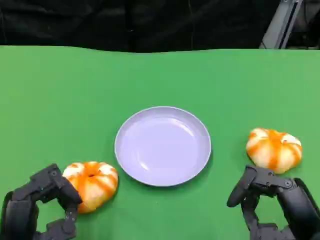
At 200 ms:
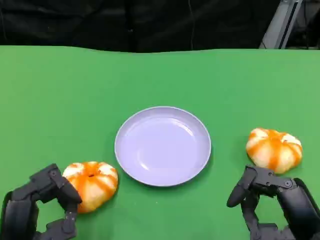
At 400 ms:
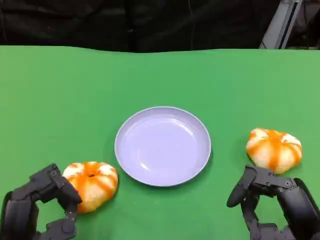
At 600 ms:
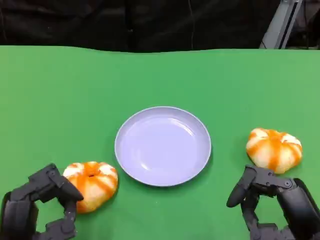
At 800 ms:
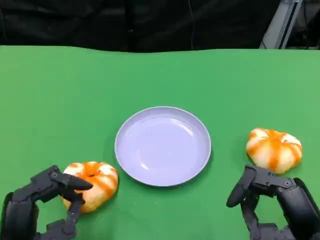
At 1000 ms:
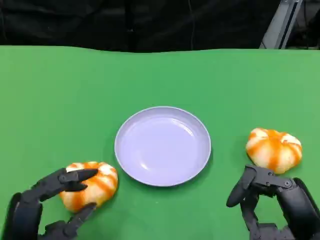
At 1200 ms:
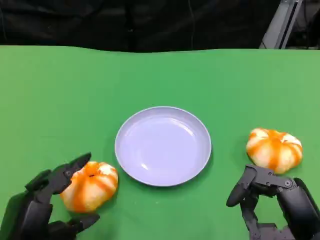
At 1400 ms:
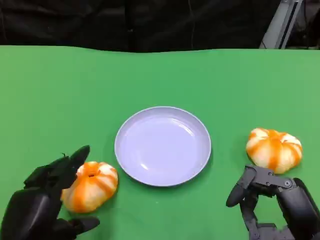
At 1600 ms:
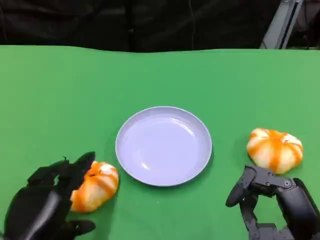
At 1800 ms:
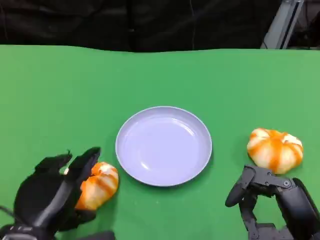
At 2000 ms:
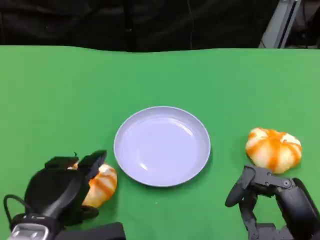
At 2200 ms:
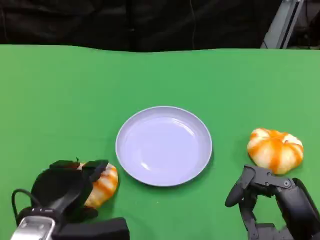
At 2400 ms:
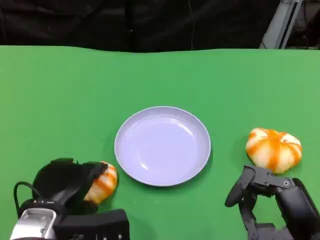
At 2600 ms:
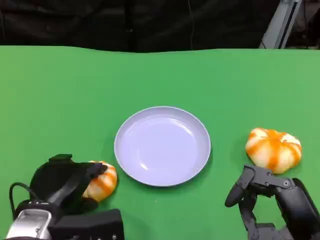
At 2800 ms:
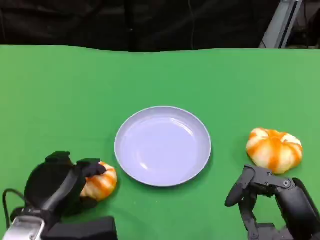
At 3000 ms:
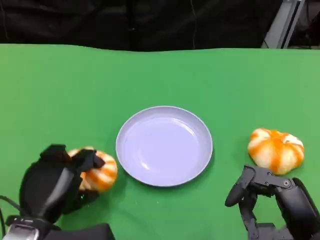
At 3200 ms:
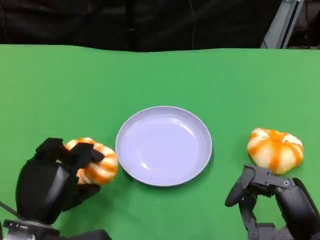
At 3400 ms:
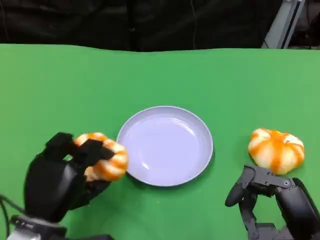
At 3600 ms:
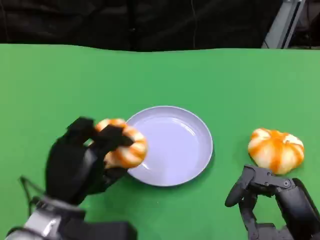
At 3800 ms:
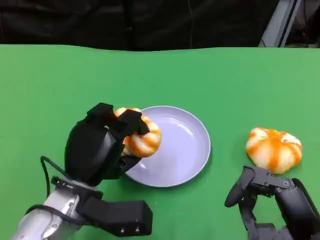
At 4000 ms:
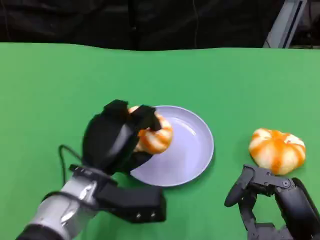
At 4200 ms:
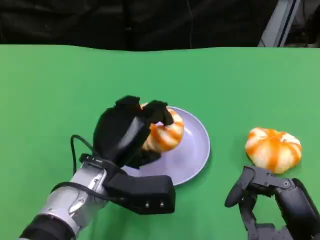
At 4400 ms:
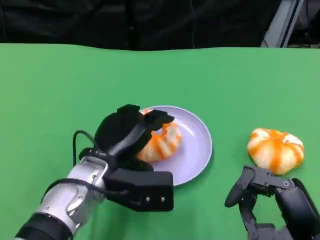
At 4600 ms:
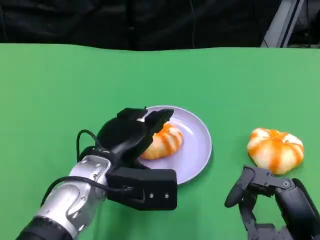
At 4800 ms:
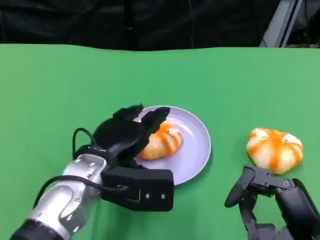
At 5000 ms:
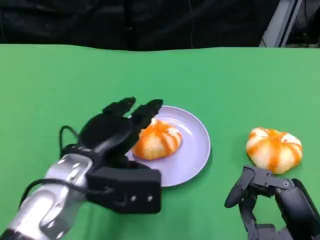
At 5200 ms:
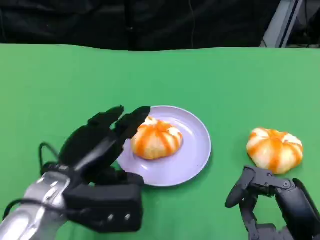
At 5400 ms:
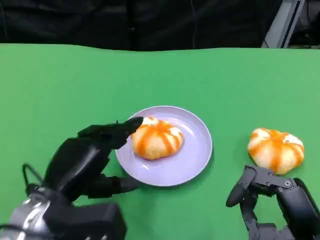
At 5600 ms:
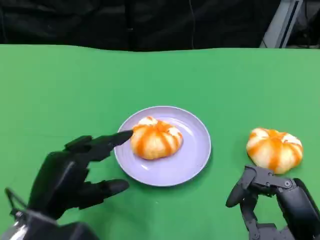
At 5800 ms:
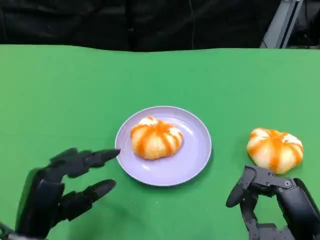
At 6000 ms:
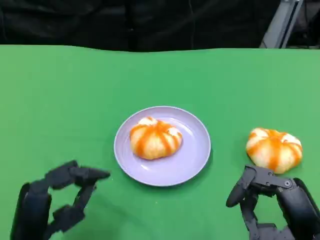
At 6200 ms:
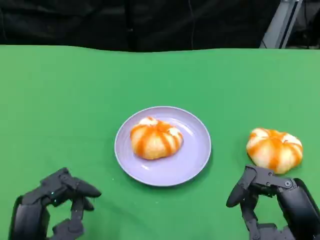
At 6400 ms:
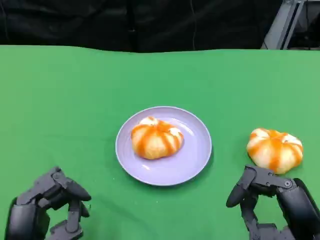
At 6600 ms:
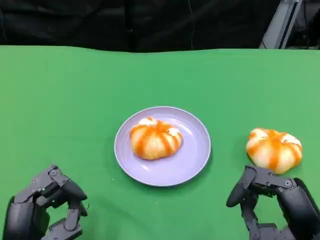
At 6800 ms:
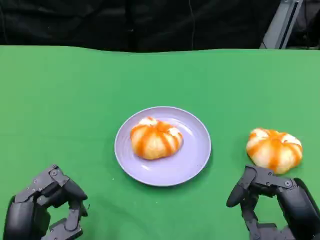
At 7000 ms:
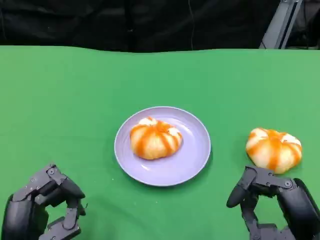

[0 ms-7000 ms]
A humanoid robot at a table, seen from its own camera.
Task of the whole recording: Grasp the bread from the table and place it into the plate.
1400 ms to 2800 ms: The left hand is displaced forward by approximately 5 cm.
2800 ms to 4200 ms: The left hand moves to the right and forward, roughly 10 cm.
4200 ms to 5600 ms: The left hand goes approximately 10 cm to the left and backward.
5600 ms to 7000 ms: The left hand heads backward, covering some 5 cm.

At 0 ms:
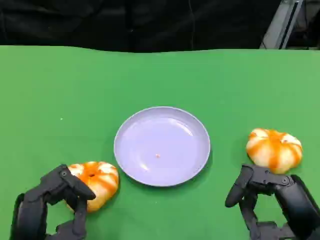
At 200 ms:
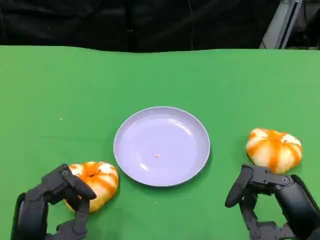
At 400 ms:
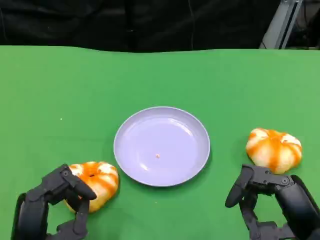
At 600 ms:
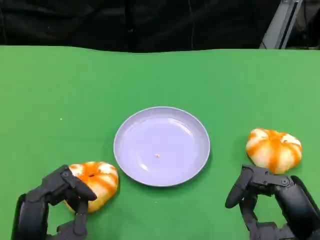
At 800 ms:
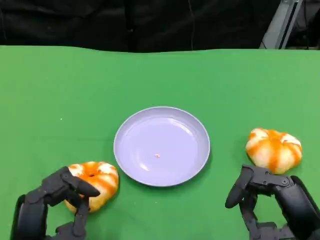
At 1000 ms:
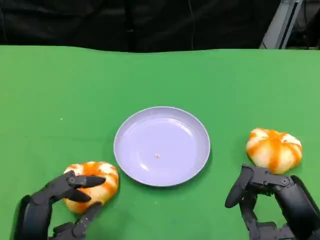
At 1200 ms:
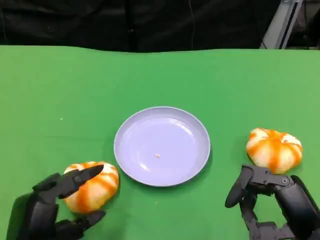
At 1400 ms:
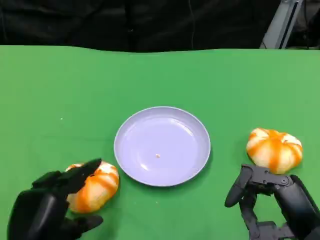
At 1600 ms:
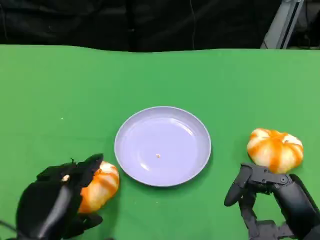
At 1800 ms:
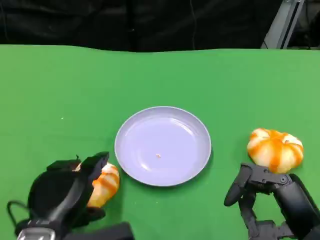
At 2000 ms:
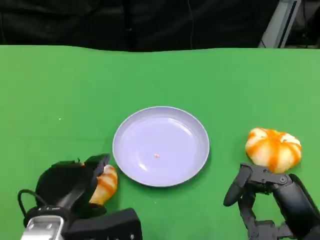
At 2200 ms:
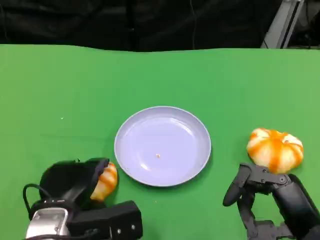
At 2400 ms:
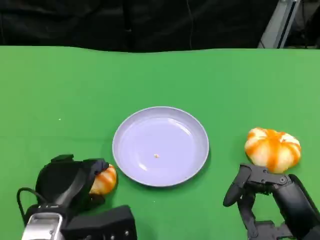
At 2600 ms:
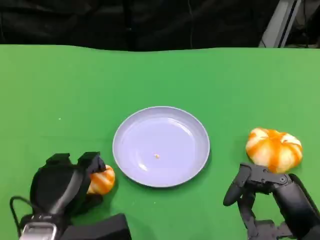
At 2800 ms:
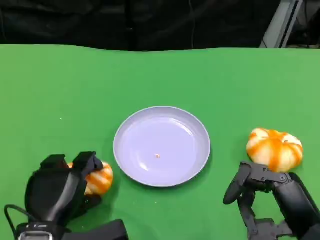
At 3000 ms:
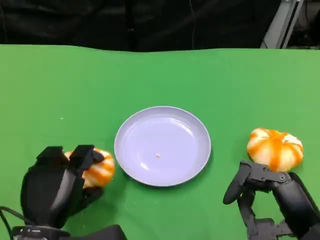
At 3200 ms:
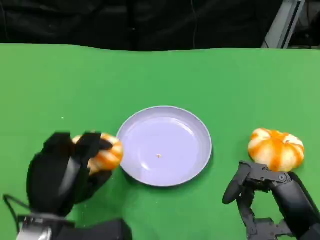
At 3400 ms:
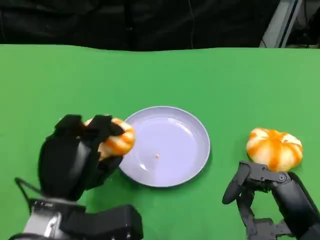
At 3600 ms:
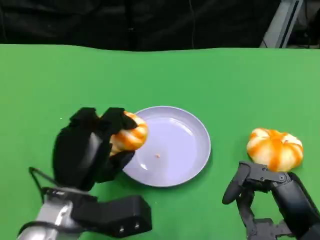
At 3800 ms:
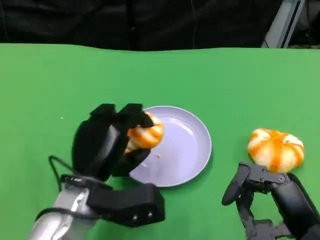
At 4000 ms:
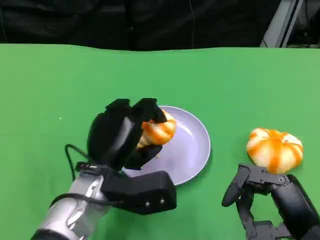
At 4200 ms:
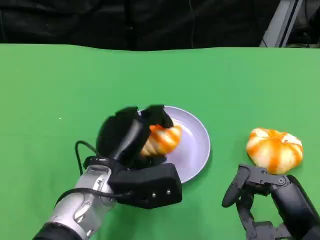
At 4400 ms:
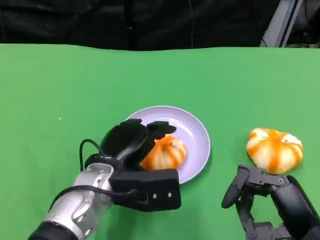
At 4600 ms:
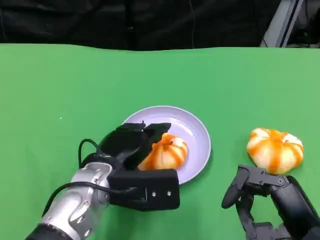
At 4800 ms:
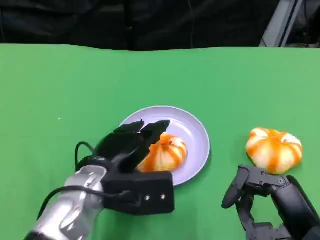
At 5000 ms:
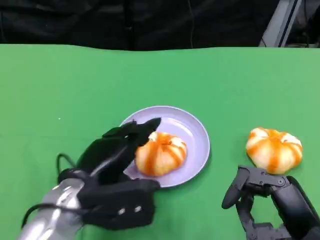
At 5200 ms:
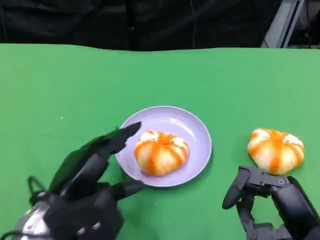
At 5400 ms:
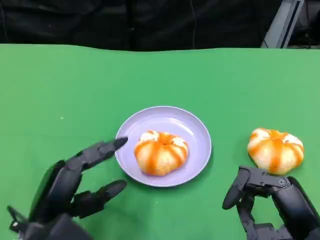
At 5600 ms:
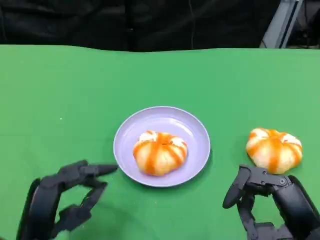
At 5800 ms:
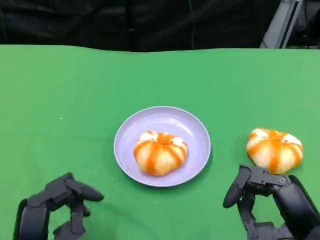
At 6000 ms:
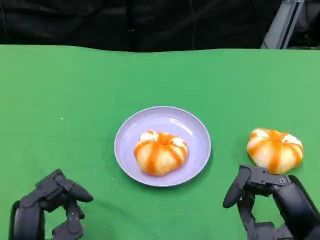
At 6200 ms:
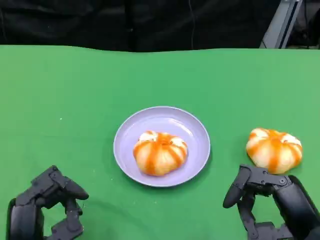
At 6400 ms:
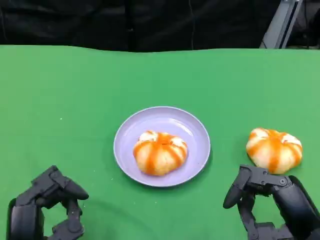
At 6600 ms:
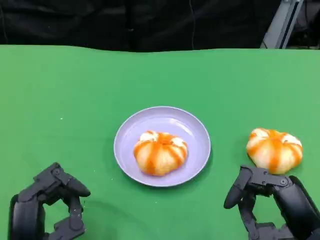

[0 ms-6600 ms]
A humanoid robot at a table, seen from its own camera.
Task of the whole recording: Grasp the bread from the table and place it into the plate.
5000 ms to 6600 ms: The left hand travels backward by about 10 cm.

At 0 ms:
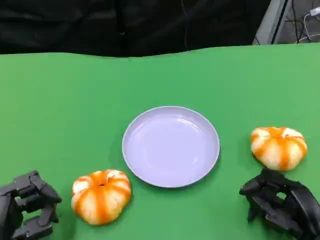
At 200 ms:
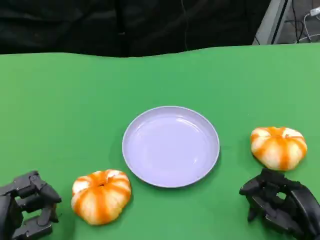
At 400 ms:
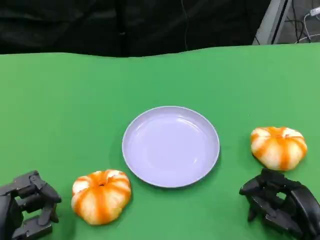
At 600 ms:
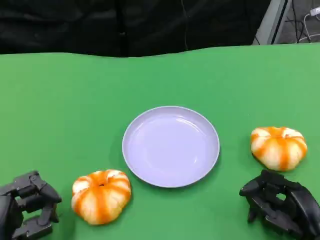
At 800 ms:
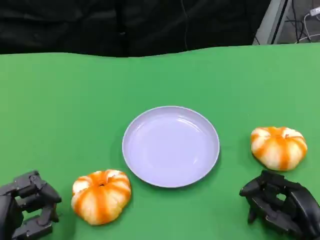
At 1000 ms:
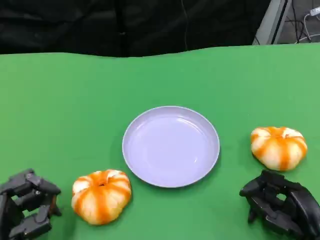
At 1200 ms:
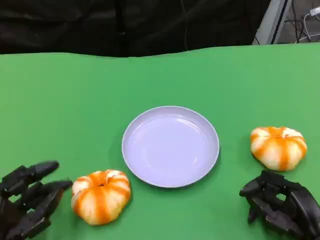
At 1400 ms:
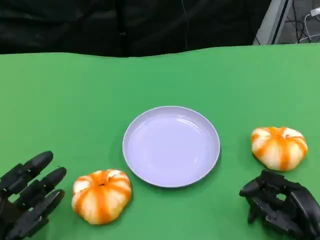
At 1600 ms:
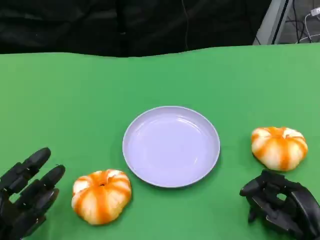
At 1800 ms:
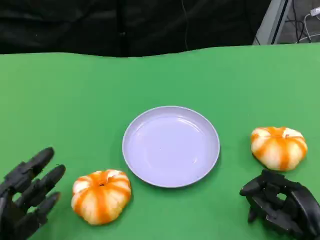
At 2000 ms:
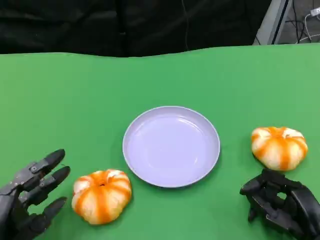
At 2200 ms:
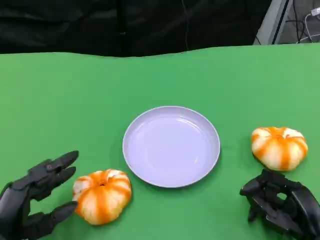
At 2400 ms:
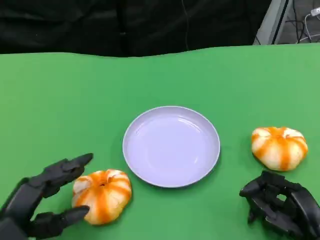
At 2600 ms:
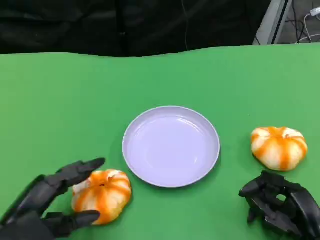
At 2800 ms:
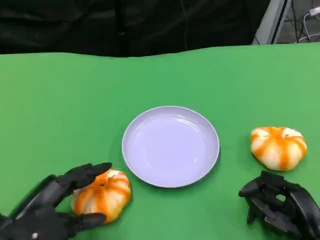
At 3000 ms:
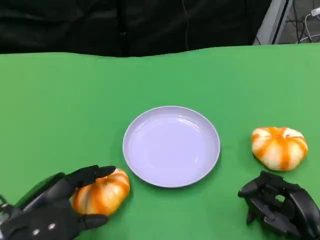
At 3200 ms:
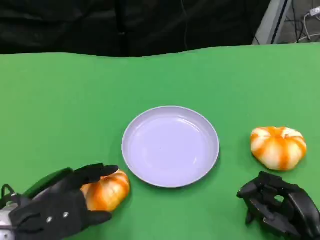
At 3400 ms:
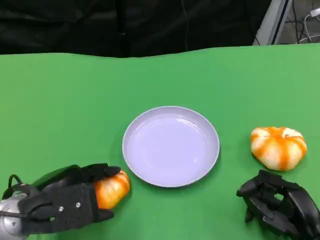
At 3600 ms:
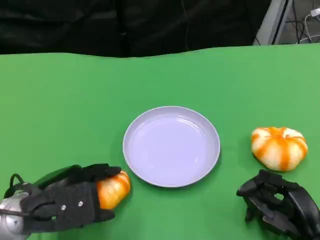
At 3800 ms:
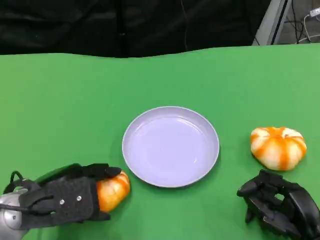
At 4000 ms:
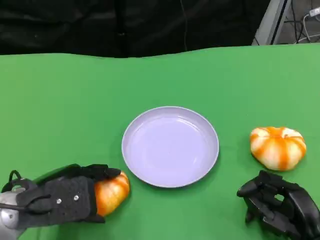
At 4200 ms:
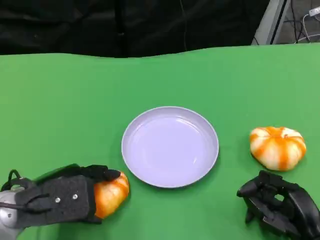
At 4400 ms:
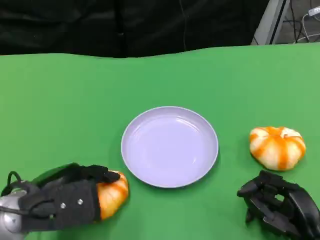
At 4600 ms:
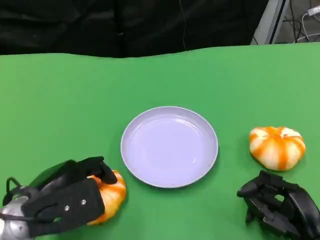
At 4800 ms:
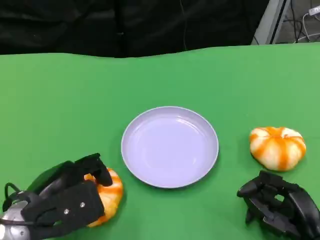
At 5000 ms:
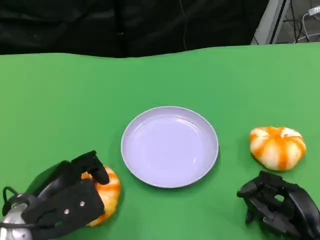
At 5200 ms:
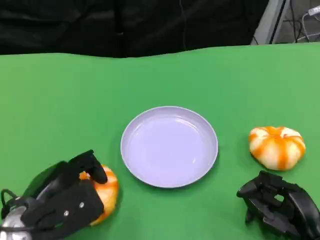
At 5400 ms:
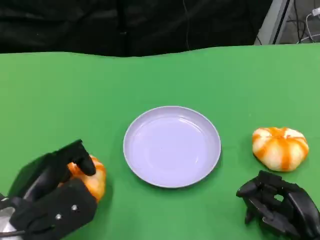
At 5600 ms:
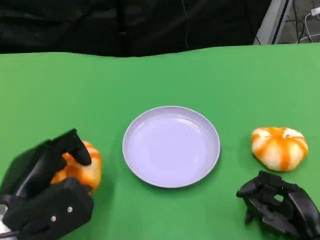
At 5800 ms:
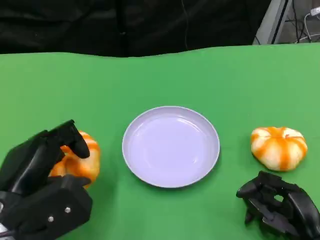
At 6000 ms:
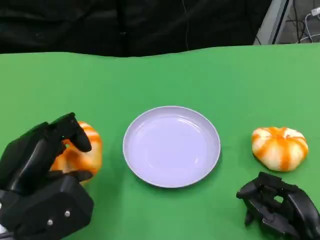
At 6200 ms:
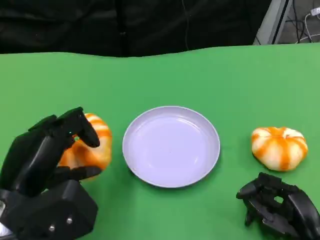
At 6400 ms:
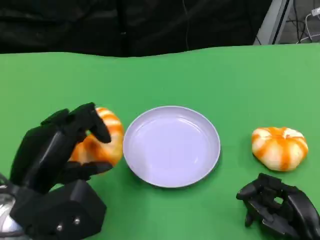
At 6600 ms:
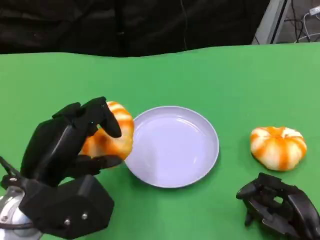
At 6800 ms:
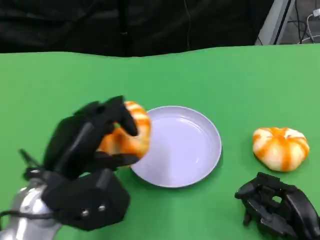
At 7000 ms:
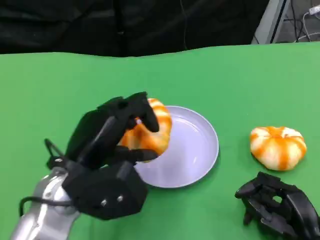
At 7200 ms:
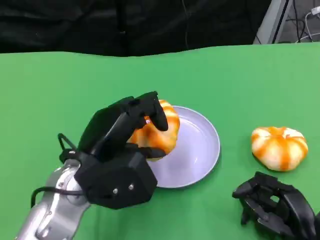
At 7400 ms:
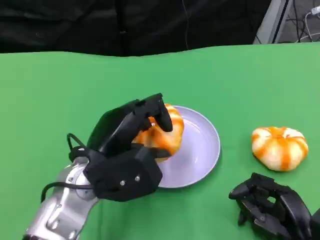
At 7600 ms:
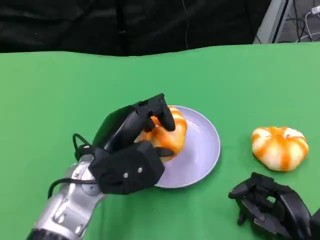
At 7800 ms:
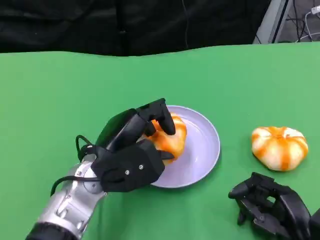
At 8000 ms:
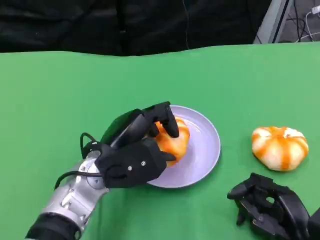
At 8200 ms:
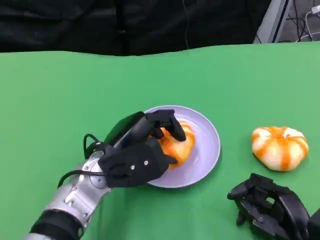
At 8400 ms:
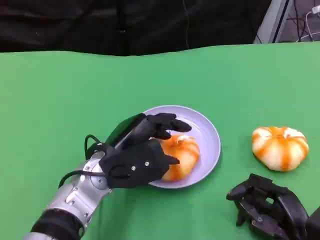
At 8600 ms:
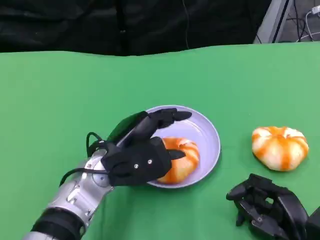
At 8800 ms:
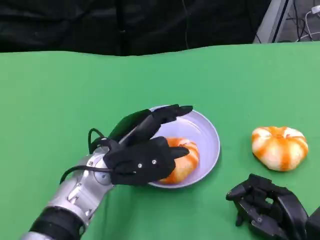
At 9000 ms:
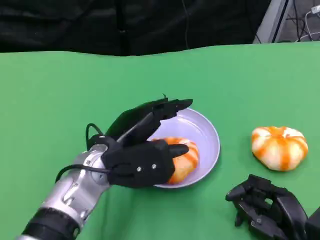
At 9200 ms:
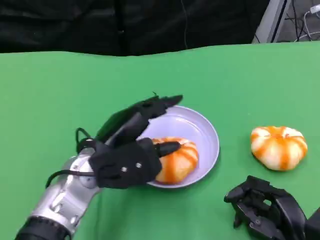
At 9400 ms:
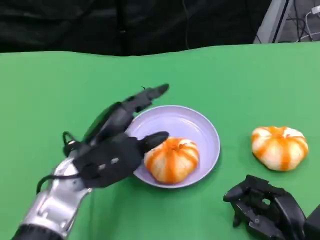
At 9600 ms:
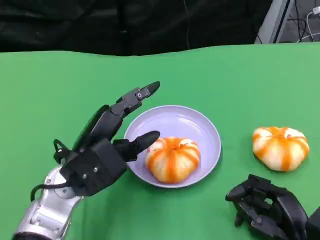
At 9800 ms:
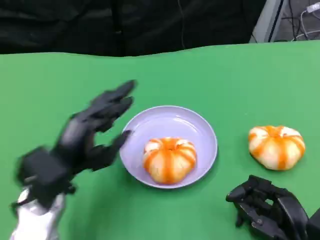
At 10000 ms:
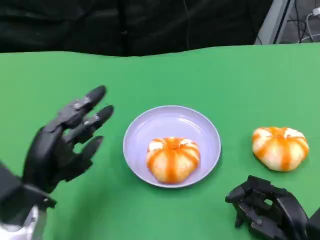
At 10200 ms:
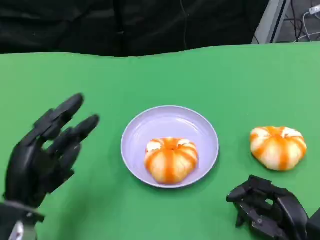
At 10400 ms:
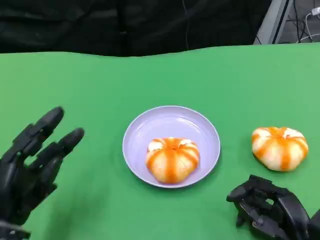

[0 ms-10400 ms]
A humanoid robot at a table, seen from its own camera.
Task of the whole recording: Grasp the bread from the table and place it into the plate.
0 ms to 1400 ms: There are only small adjustments of the hands.
1400 ms to 3000 ms: The left hand shifts some 5 cm upward.
3000 ms to 4400 ms: The hands make only small movements.
6000 ms to 7400 ms: The left hand travels to the right and forward by roughly 10 cm.
7400 ms to 9000 ms: There are only small adjustments of the hands.
9000 ms to 10400 ms: The left hand is displaced to the left, backward and downward by roughly 20 cm.
